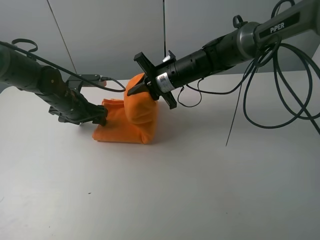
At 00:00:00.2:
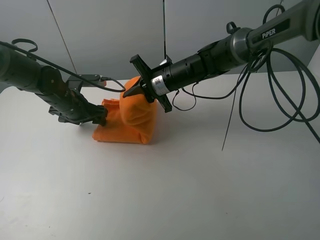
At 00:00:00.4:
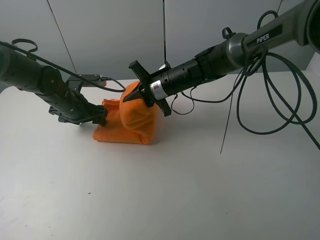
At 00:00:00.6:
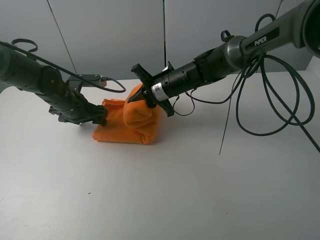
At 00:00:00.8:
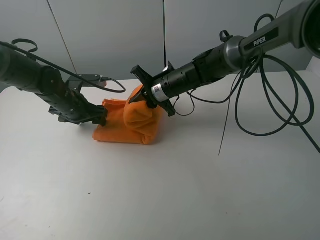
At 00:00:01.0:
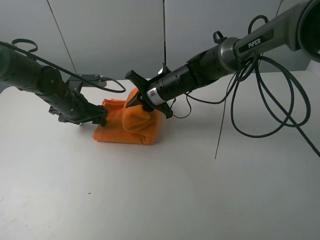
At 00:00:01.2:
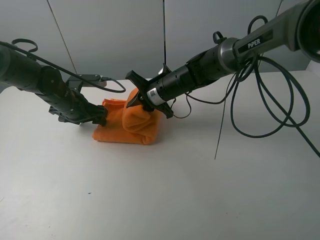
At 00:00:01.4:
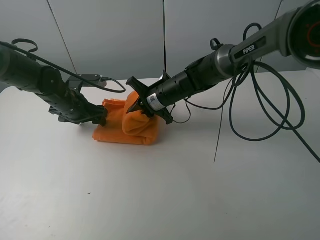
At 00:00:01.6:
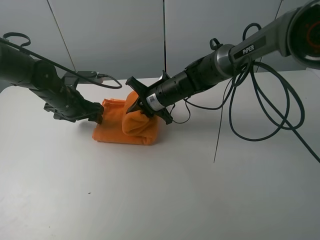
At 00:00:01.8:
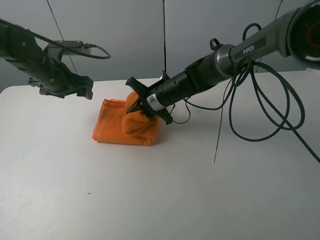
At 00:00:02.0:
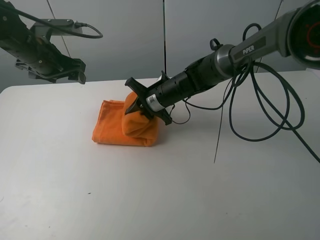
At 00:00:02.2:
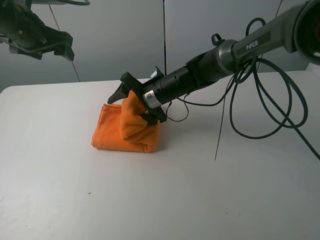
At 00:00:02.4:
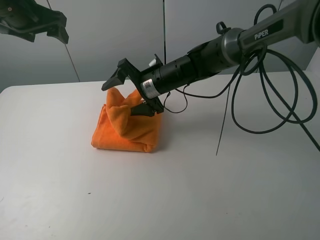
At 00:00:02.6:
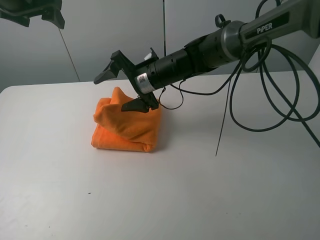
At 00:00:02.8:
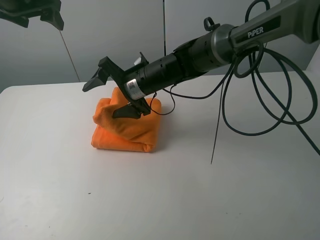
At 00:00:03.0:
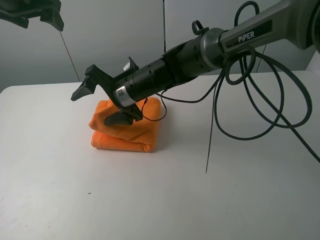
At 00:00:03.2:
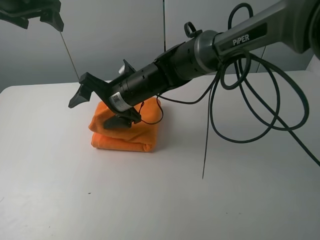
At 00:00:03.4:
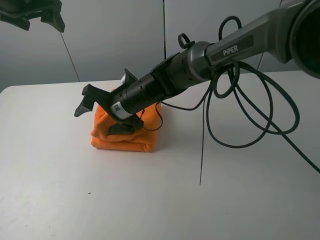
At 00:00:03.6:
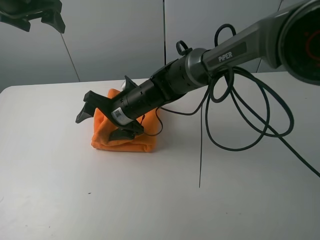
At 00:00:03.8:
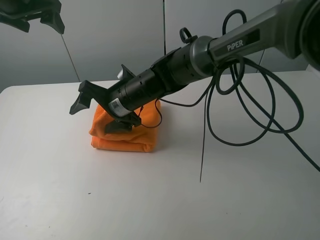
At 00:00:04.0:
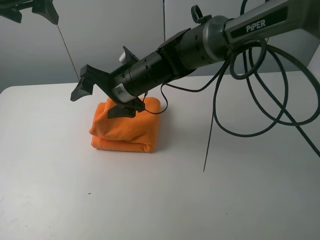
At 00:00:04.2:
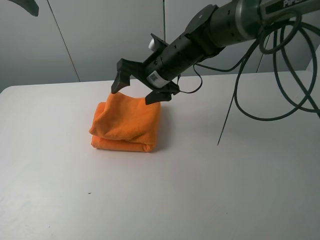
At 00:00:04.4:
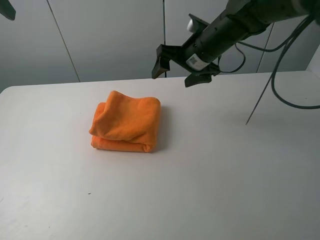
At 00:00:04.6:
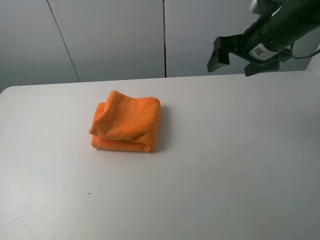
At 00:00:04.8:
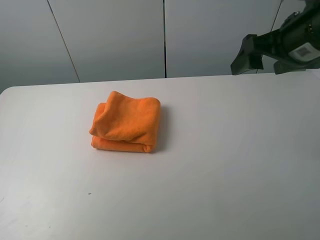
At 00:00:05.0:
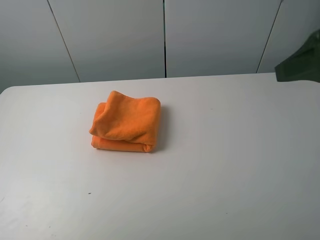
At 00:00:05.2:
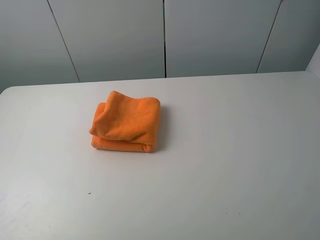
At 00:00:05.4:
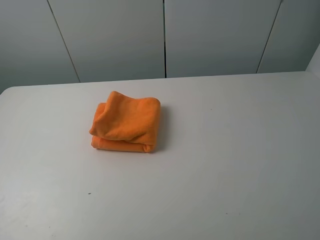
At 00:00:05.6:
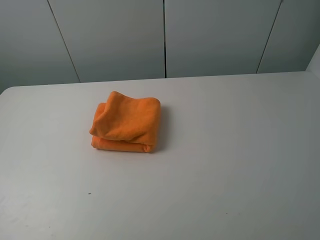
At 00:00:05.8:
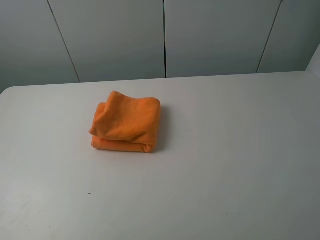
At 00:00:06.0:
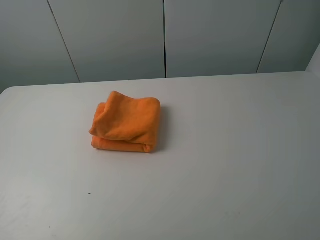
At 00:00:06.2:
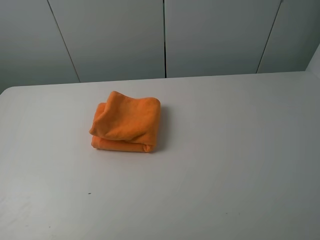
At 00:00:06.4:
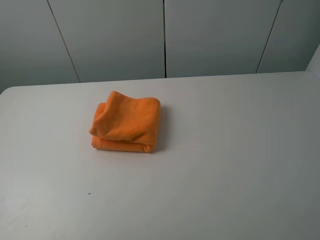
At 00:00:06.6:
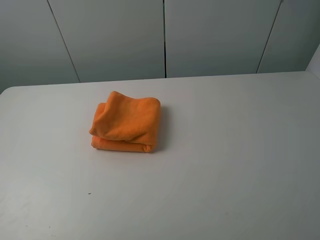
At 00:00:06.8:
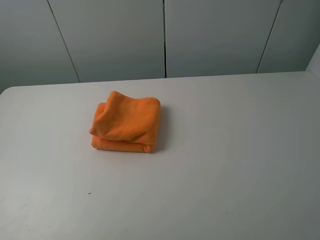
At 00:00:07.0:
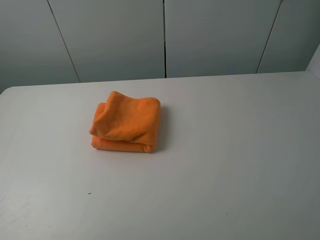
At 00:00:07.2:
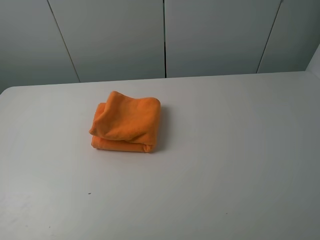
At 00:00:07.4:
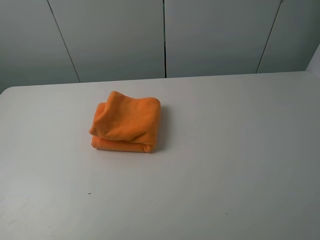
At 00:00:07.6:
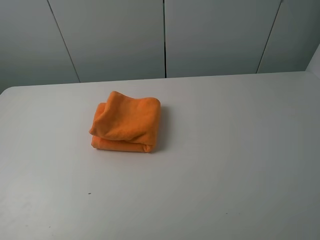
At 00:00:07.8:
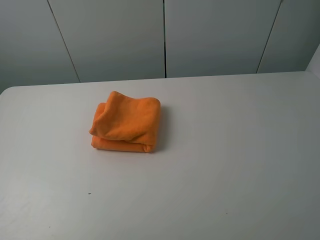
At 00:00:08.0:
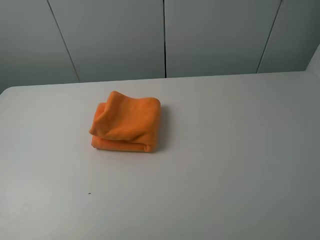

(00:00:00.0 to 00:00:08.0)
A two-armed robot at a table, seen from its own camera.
Task of the whole recording: fold the towels on the table.
Step, 00:00:00.0 - 00:00:02.6: Fold the orange towel from right to left with right gripper.
Step, 00:00:02.8 - 00:00:03.8: Arrange the orange towel with the right hand.
00:00:00.0 - 00:00:01.6: The right gripper shifts about 5 cm downward.
00:00:01.6 - 00:00:03.2: The left gripper moves upward, some 25 cm, while the right gripper travels to the left, backward and upward by about 10 cm, and opens its fingers.
00:00:03.2 - 00:00:04.8: The left gripper travels backward by about 25 cm. Meanwhile the right gripper heads to the right and upward, covering approximately 30 cm.
00:00:04.8 - 00:00:06.4: The right gripper travels backward by about 25 cm; the left gripper is displaced backward and downward by approximately 15 cm.
